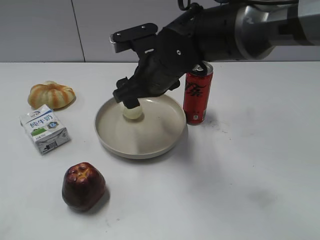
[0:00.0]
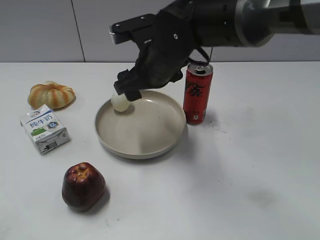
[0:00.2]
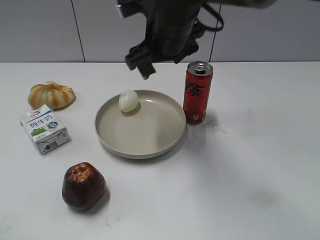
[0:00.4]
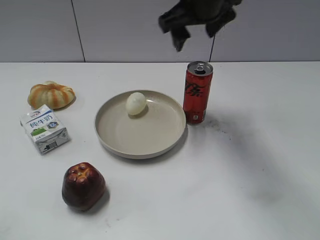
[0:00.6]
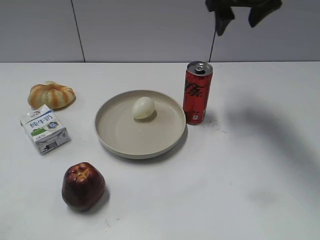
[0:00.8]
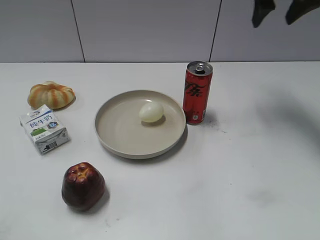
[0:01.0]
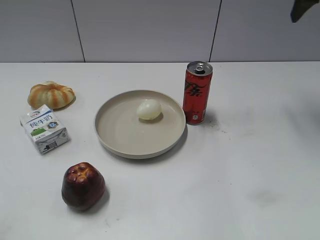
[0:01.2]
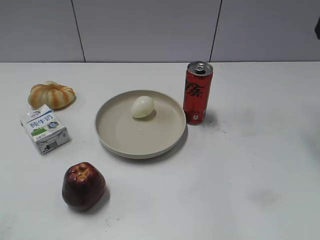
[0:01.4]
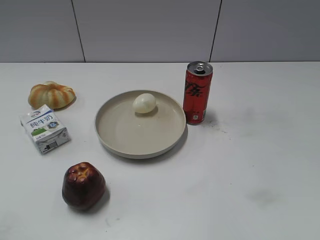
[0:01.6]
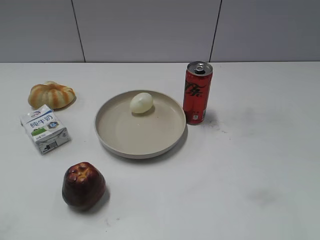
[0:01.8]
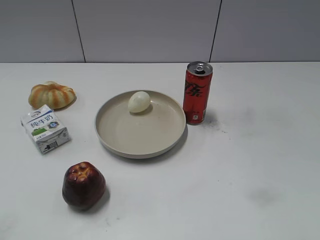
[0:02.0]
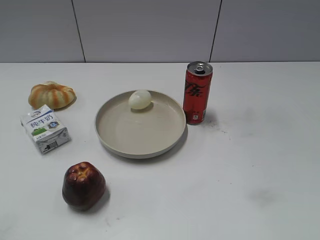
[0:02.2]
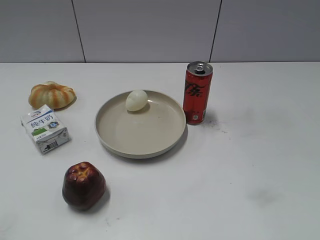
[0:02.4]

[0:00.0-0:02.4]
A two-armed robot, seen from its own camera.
0:00.0 to 0:01.2: The right gripper moves to the right and upward, roughly 30 cm.
0:01.2 to 0:02.4: The right gripper travels backward by some 40 cm.
